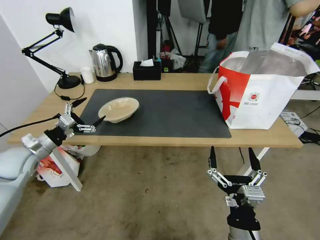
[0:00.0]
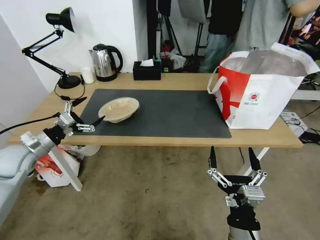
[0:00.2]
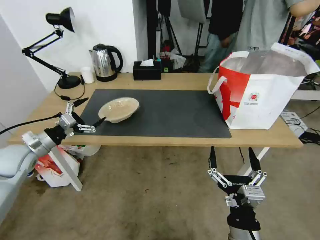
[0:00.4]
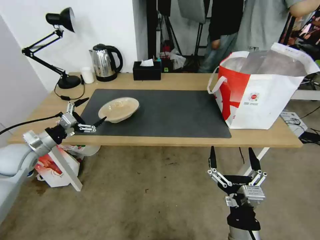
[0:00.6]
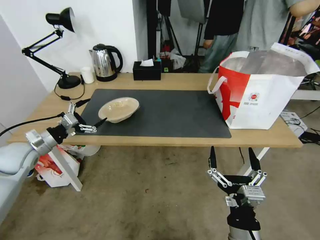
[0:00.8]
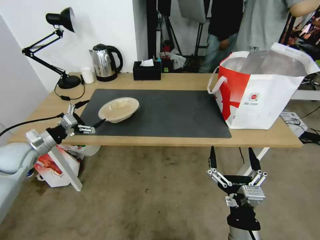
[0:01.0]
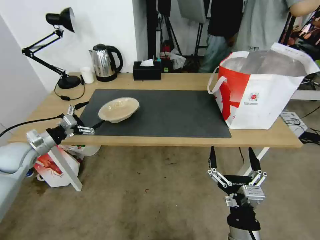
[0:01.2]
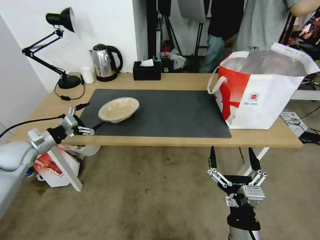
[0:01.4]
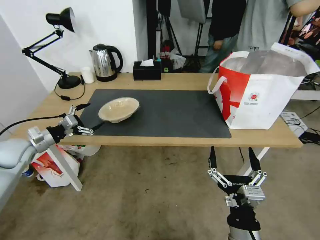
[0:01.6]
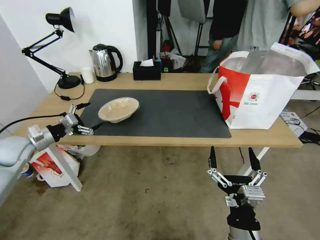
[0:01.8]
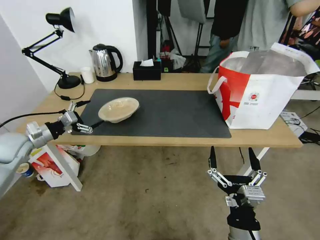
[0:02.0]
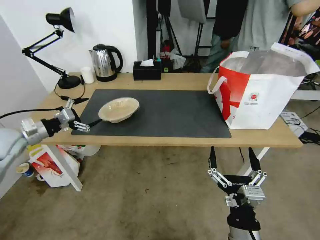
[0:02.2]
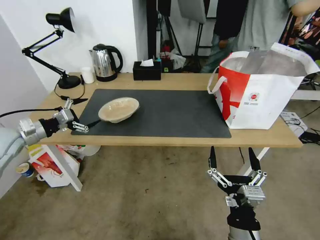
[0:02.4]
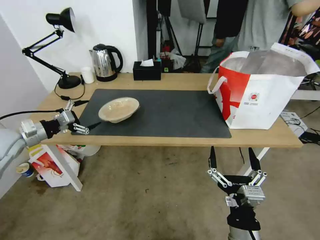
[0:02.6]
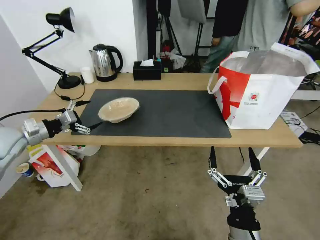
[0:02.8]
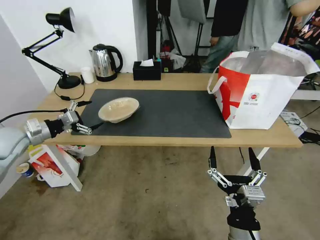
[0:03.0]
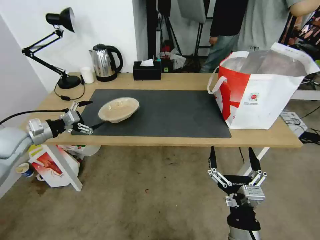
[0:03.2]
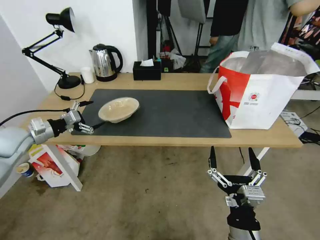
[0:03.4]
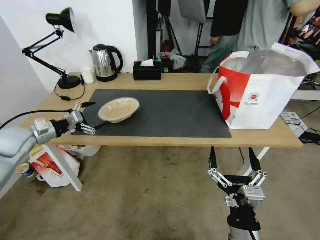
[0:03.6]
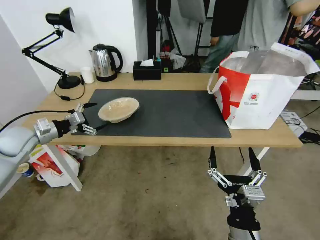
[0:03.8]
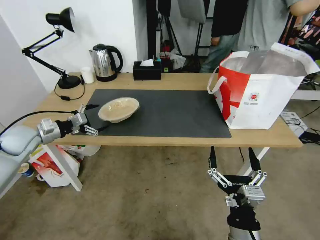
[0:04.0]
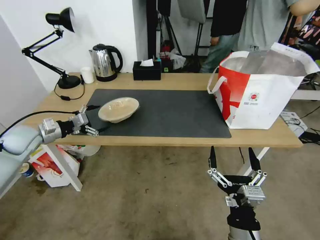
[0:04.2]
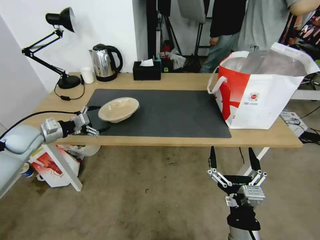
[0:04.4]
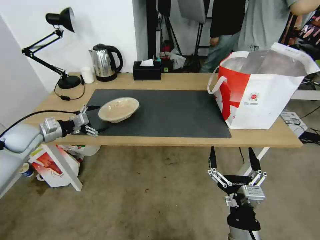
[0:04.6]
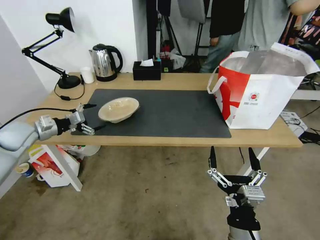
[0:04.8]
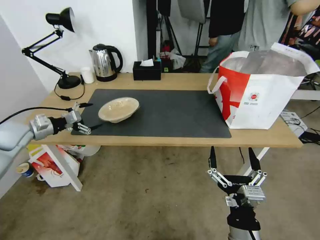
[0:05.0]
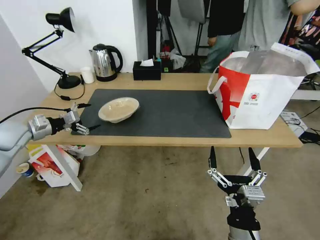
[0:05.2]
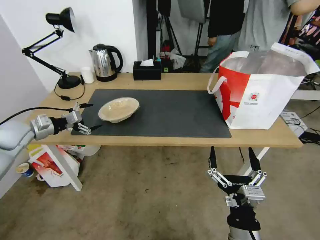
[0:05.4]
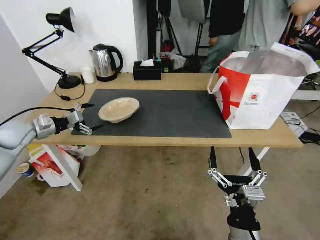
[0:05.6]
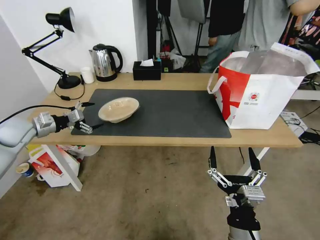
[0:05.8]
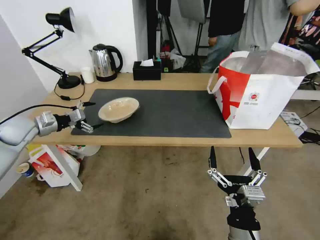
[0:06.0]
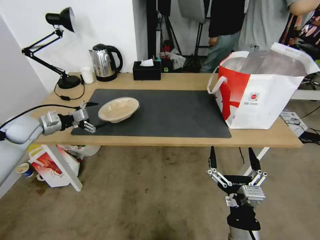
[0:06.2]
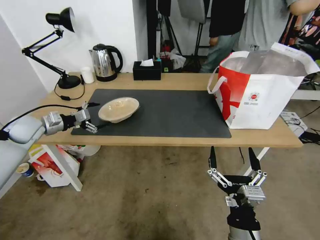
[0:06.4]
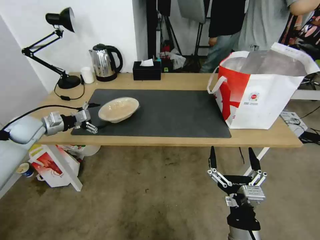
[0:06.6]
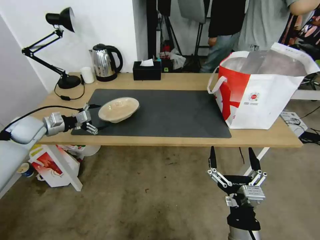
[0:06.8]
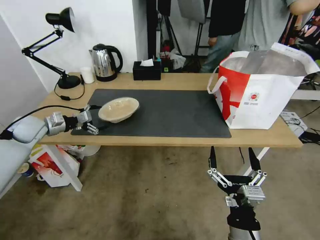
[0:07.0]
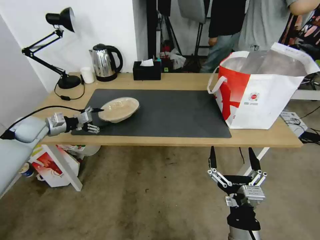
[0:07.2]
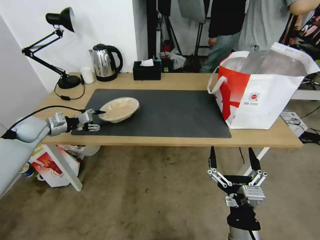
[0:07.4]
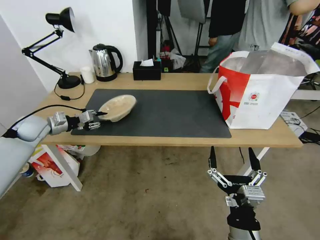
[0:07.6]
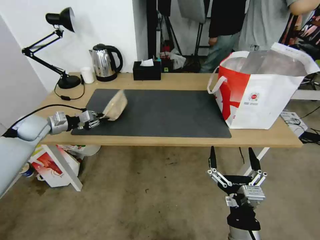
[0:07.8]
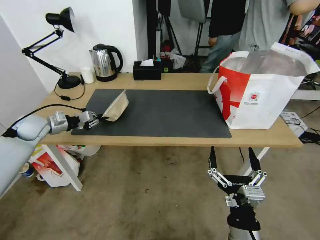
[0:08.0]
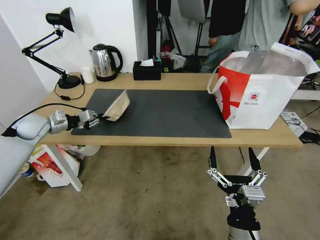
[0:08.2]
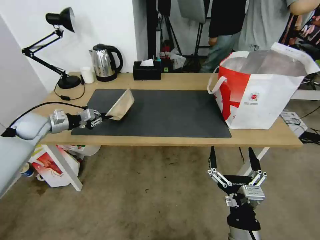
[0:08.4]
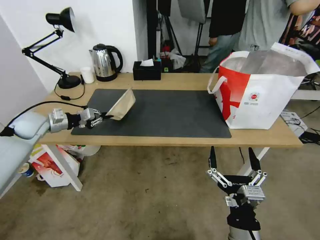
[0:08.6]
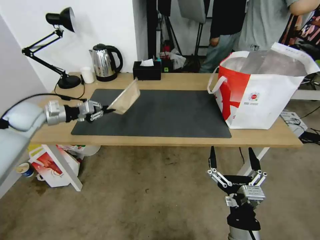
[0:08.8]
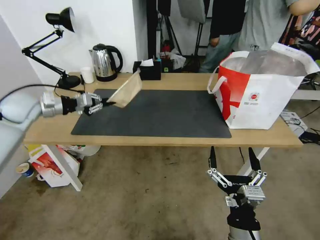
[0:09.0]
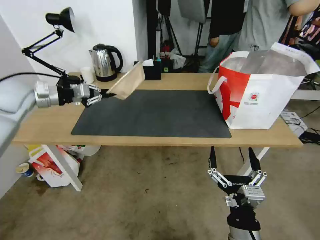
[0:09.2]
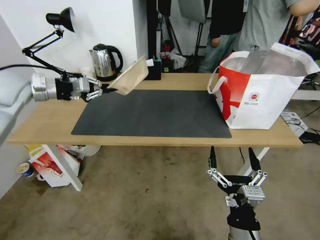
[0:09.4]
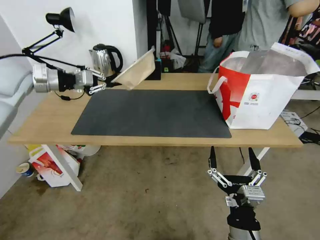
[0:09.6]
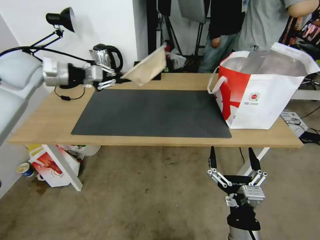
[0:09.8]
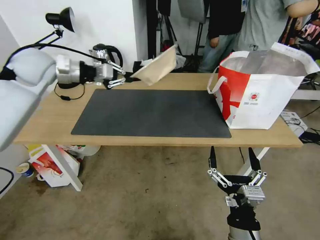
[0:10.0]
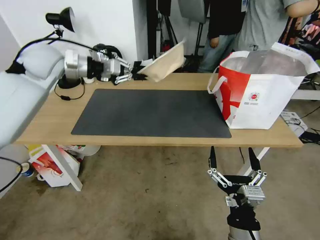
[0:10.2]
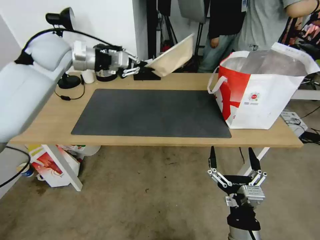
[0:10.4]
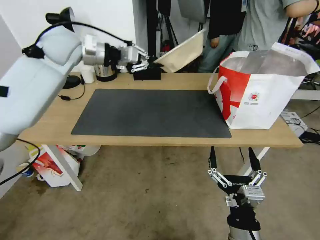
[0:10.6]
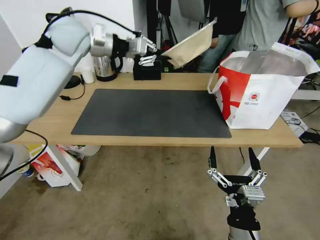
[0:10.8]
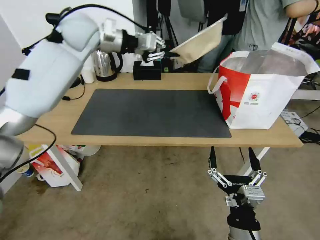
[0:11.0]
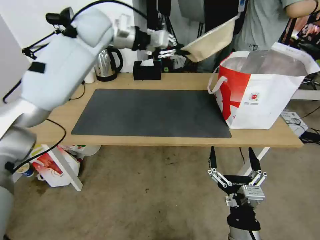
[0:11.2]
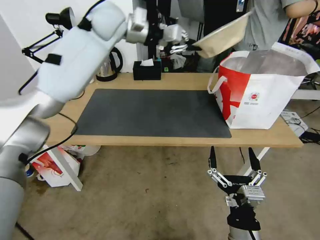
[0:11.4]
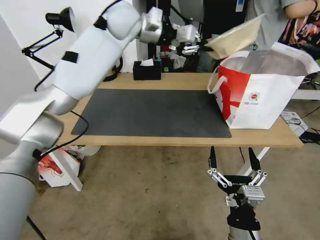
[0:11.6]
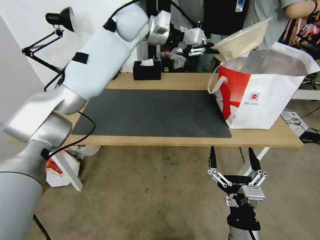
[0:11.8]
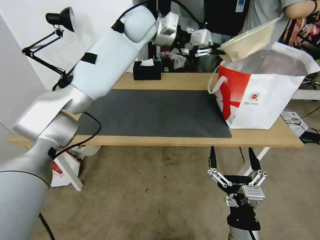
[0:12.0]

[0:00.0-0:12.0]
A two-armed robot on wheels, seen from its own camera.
Task of the whole recording: Pick up the trash from the table and place it into the takeout bag.
0:00.0 to 0:01.6: The grippers make only small movements.
0:01.6 to 0:04.4: There are only small adjustments of the grippers.
0:04.4 to 0:06.0: There are only small adjustments of the grippers.
0:06.0 to 0:07.6: The left gripper closes.
0:07.6 to 0:09.0: The left gripper goes about 10 cm upward.
0:09.0 to 0:10.4: The left gripper is displaced upward, to the right and forward by some 20 cm.
0:10.4 to 0:12.0: The left gripper goes some 20 cm to the right.

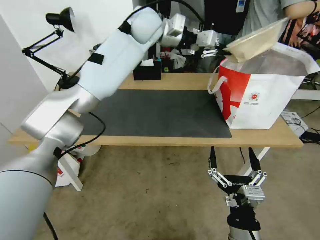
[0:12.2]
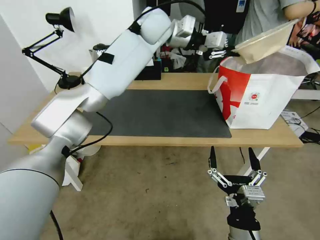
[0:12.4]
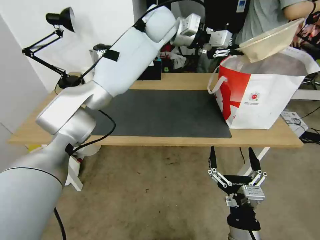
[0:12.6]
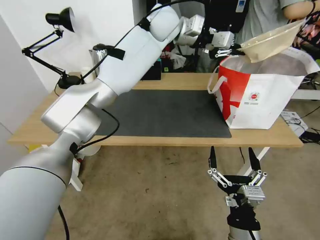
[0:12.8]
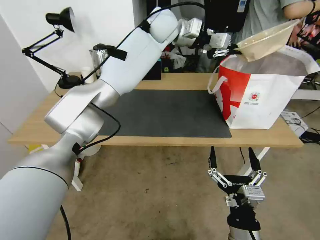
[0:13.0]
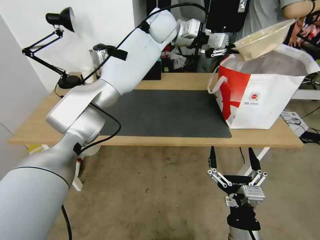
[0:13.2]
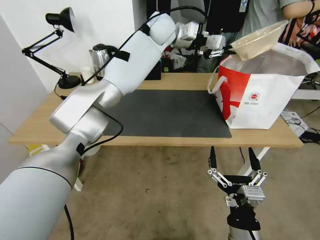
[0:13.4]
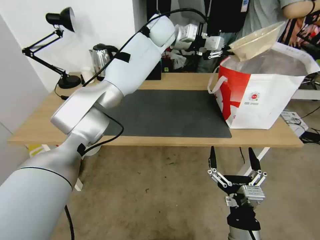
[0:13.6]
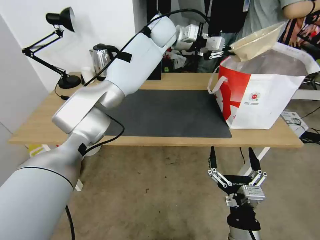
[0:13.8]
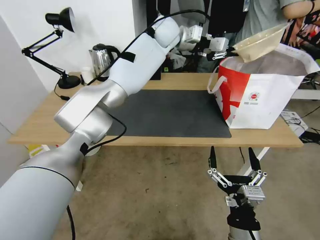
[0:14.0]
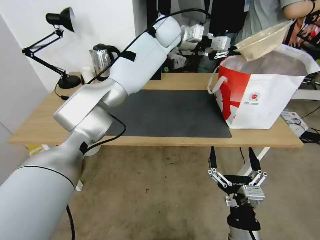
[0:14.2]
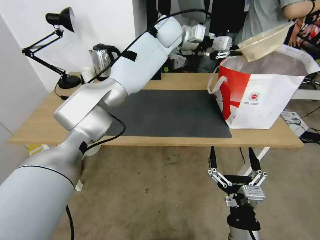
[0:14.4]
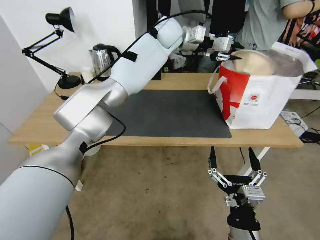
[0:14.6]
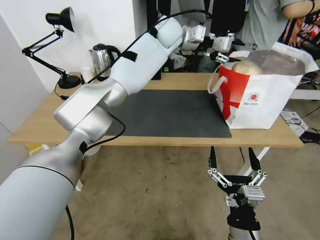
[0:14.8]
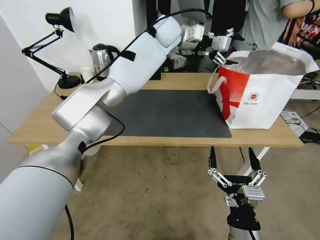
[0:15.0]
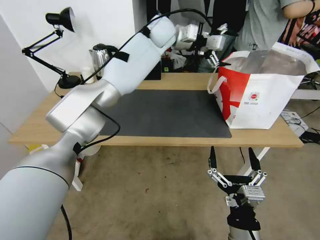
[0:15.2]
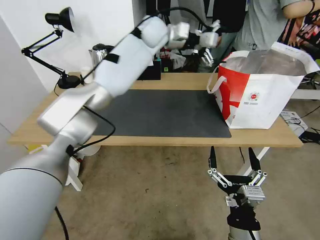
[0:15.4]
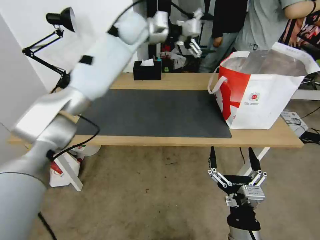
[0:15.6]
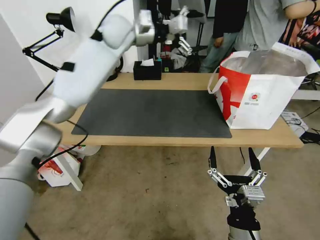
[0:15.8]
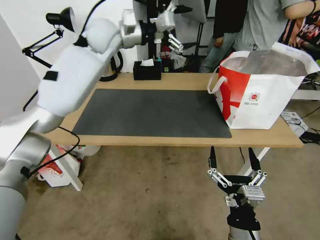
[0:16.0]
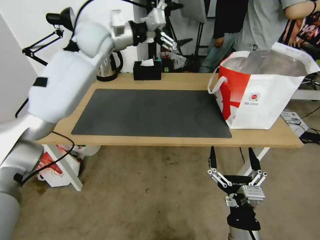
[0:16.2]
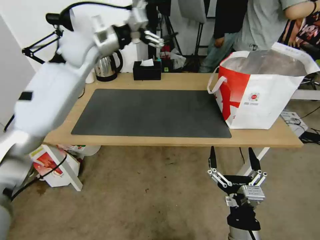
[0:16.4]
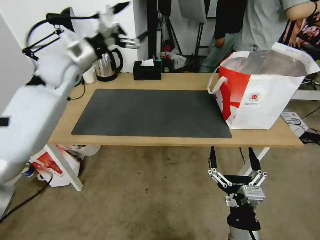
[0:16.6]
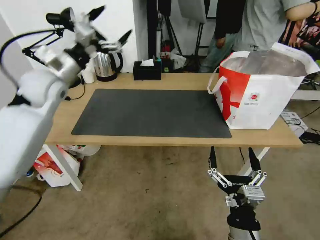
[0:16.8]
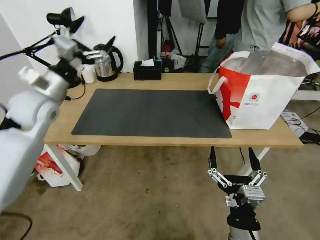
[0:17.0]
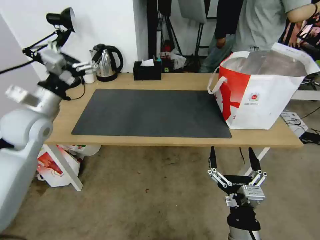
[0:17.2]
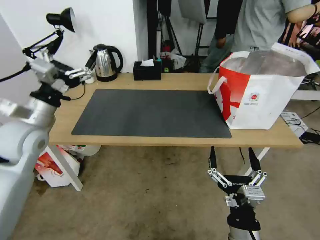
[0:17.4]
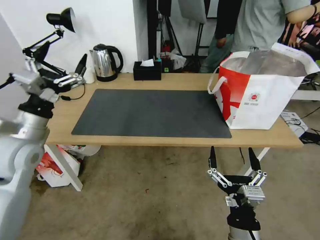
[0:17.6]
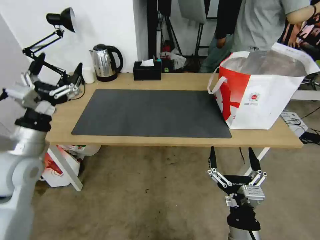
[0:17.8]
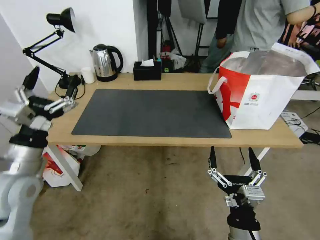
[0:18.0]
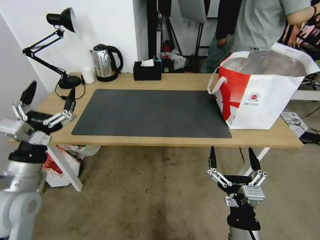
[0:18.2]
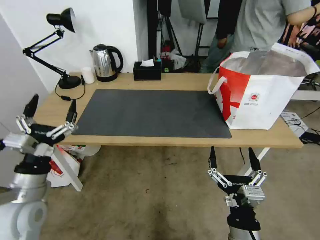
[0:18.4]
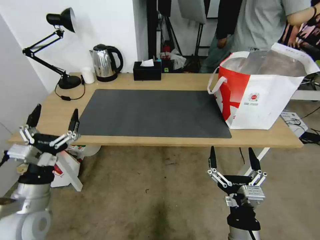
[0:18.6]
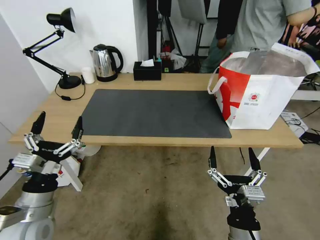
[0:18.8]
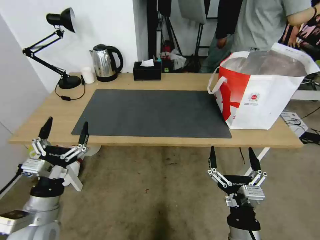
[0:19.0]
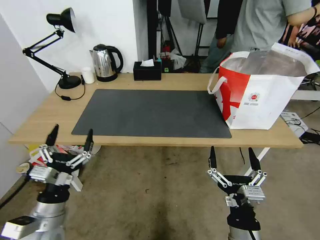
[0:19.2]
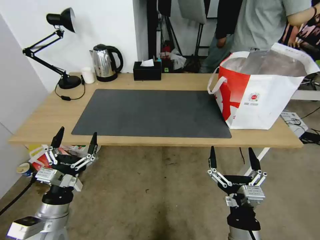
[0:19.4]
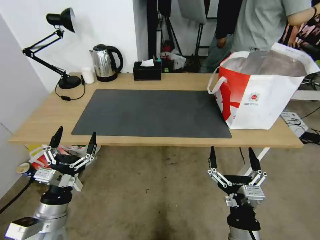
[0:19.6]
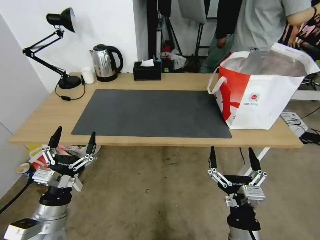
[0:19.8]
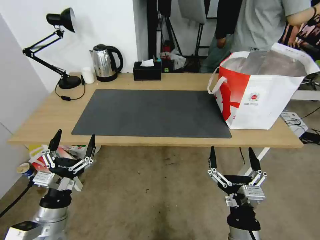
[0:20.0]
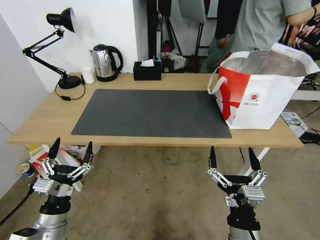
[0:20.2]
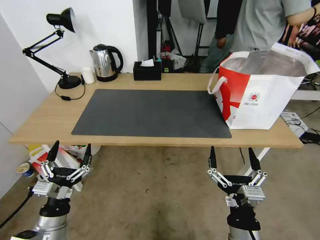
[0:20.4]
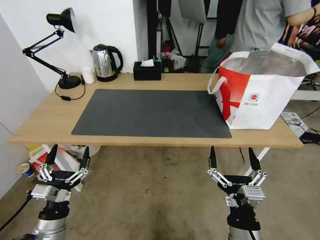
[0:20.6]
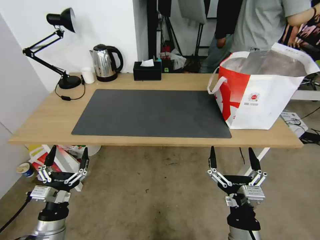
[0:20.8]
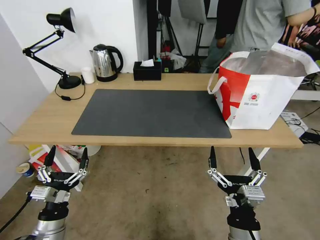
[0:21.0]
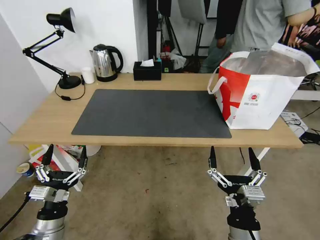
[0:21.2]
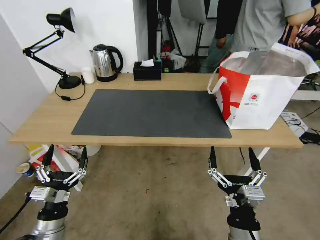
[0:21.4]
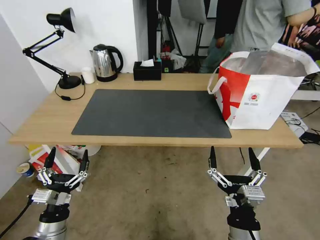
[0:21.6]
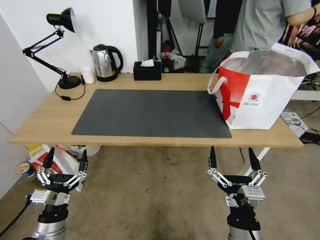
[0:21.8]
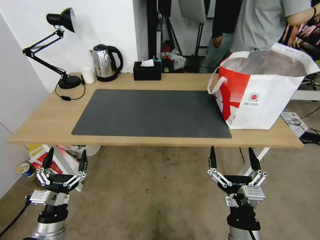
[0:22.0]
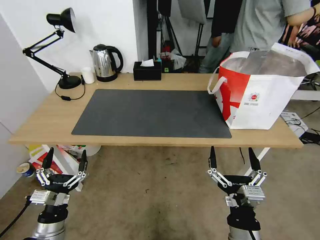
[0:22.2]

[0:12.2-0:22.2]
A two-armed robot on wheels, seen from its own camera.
Task of the whole recording: Pick up the trash from the table and place it into the takeout bag.
0:12.2 to 0:13.6: The left gripper moves roughly 5 cm.
0:13.6 to 0:15.0: The left gripper opens its fingers.
0:15.0 to 0:16.4: The left gripper is displaced to the left and backward by approximately 30 cm.
0:16.4 to 0:18.0: The left gripper moves backward and downward, some 35 cm.
0:18.0 to 0:19.4: The left gripper goes about 15 cm downward and backward.
0:19.4 to 0:20.8: The left gripper moves approximately 5 cm.
0:20.8 to 0:22.2: The grippers stay close to where they were, moving slightly.
